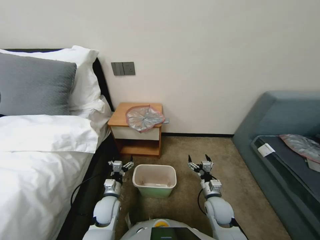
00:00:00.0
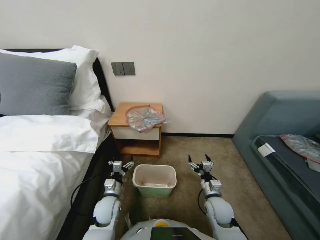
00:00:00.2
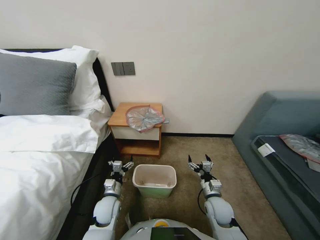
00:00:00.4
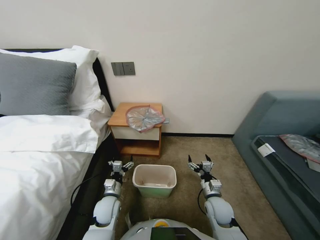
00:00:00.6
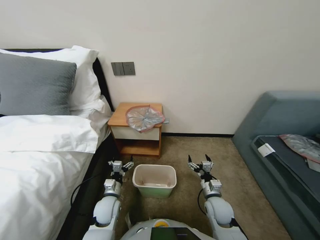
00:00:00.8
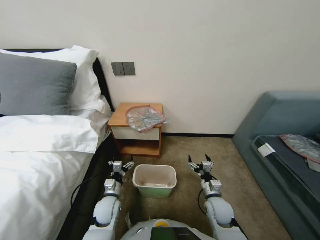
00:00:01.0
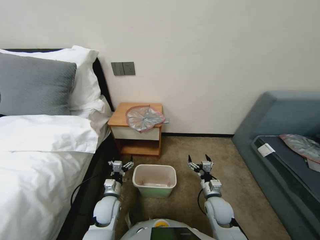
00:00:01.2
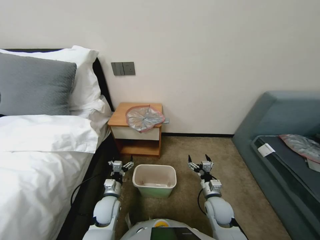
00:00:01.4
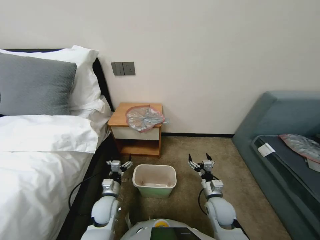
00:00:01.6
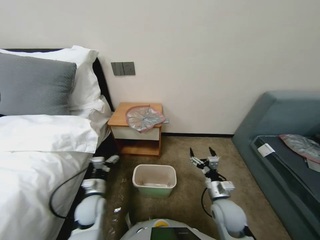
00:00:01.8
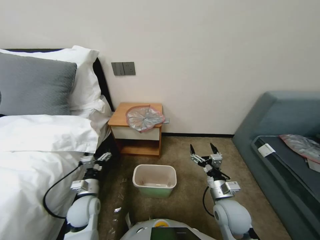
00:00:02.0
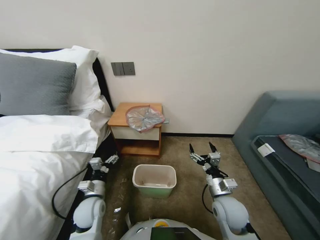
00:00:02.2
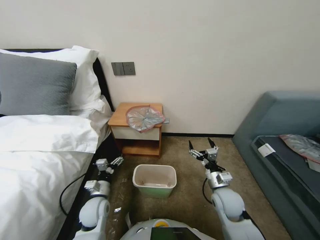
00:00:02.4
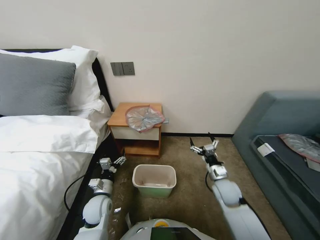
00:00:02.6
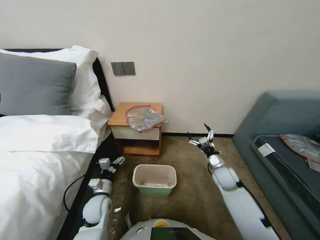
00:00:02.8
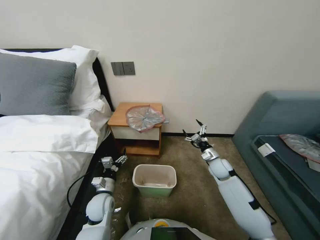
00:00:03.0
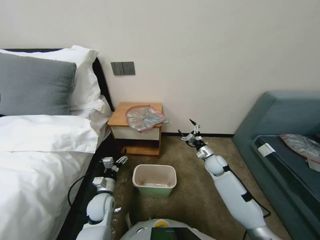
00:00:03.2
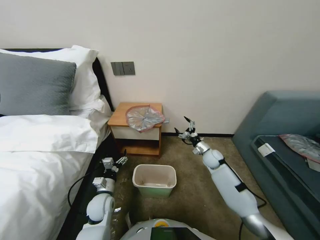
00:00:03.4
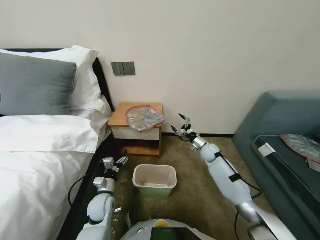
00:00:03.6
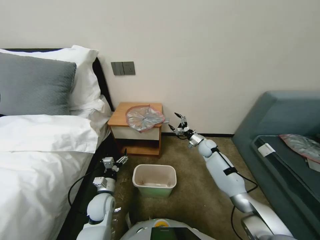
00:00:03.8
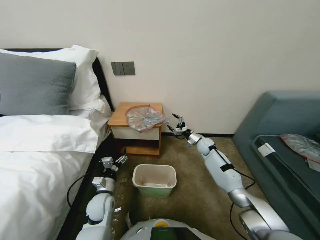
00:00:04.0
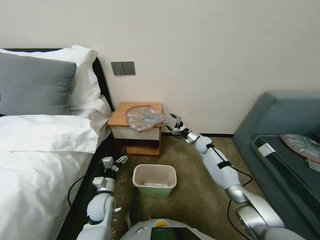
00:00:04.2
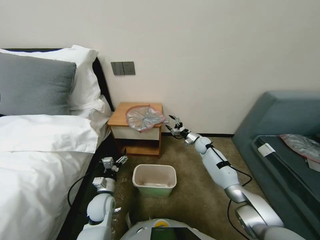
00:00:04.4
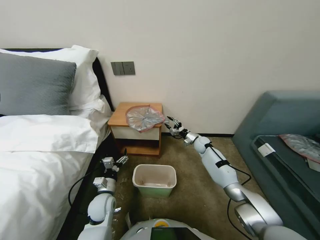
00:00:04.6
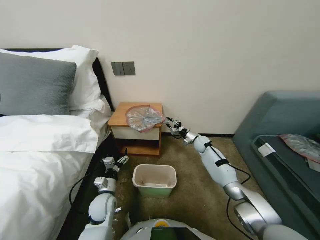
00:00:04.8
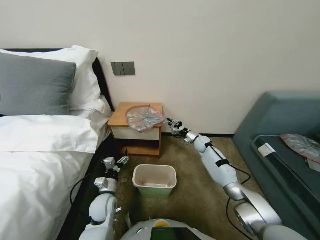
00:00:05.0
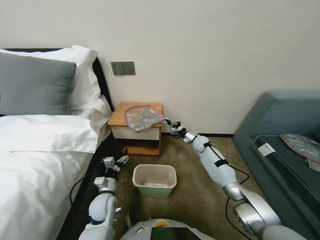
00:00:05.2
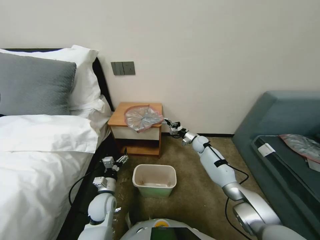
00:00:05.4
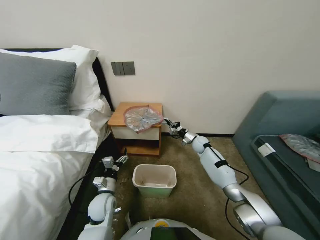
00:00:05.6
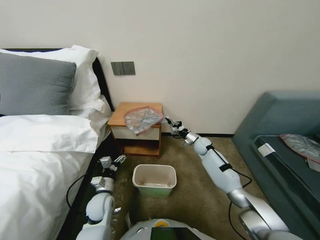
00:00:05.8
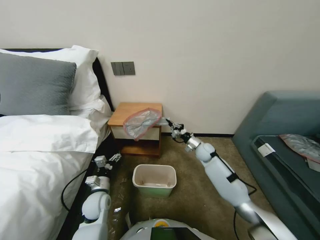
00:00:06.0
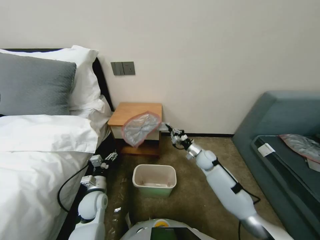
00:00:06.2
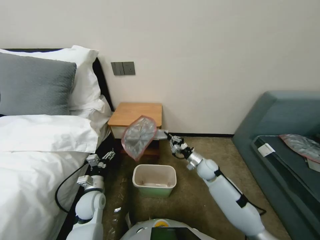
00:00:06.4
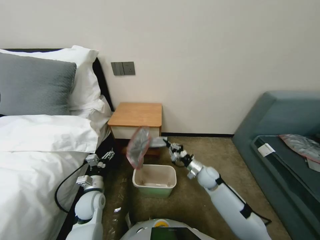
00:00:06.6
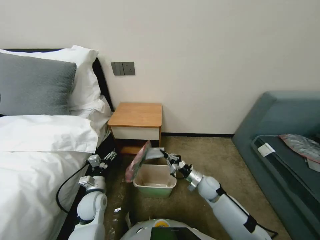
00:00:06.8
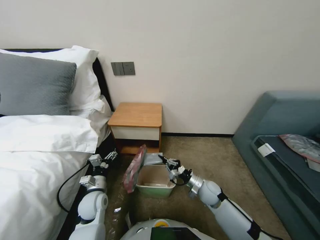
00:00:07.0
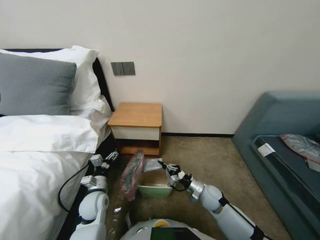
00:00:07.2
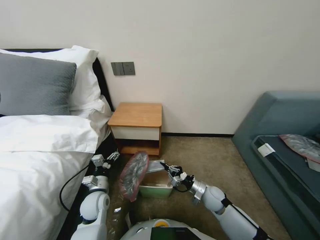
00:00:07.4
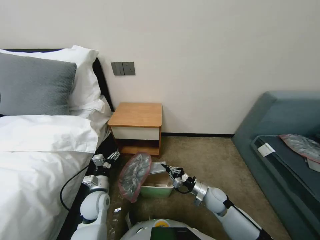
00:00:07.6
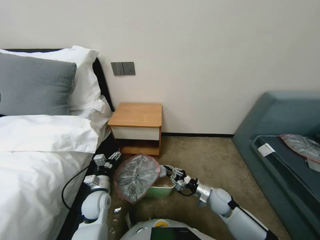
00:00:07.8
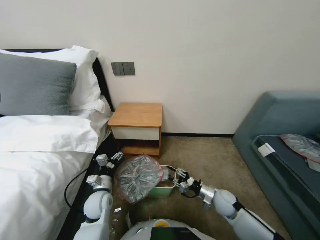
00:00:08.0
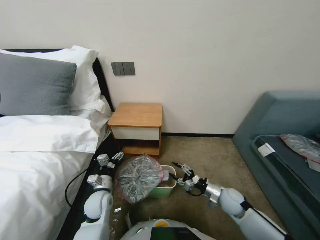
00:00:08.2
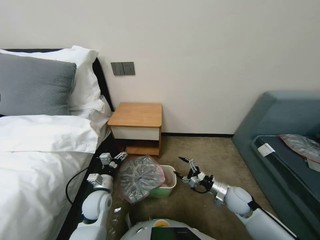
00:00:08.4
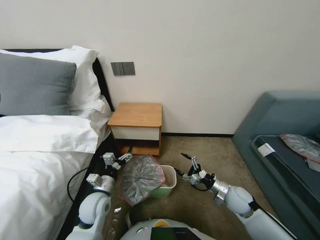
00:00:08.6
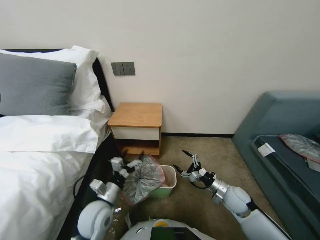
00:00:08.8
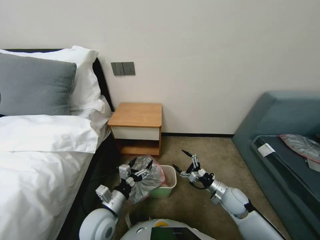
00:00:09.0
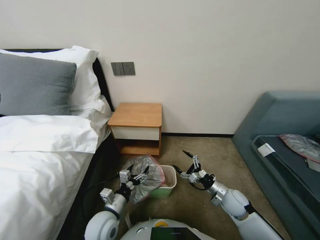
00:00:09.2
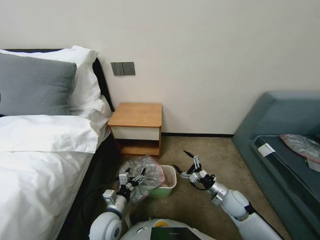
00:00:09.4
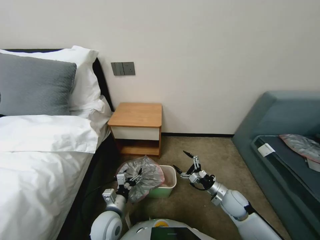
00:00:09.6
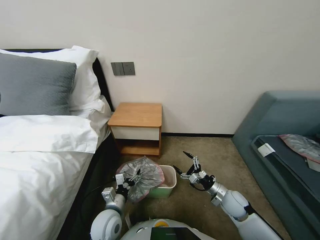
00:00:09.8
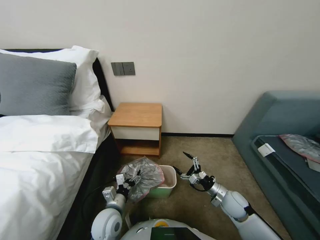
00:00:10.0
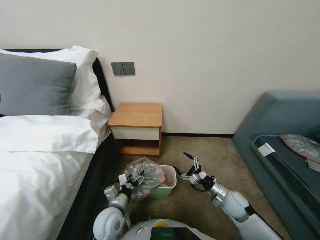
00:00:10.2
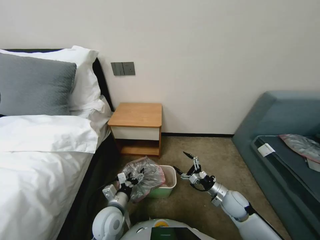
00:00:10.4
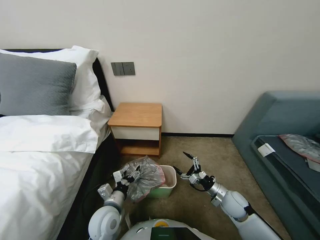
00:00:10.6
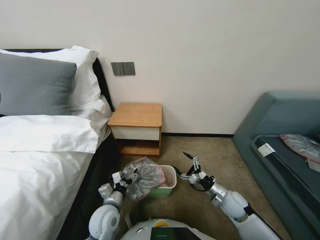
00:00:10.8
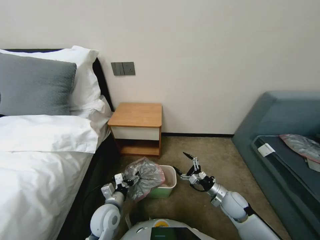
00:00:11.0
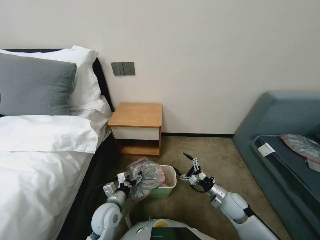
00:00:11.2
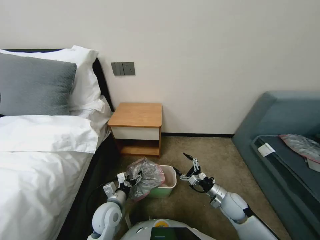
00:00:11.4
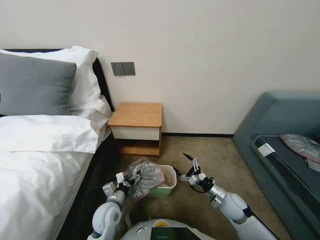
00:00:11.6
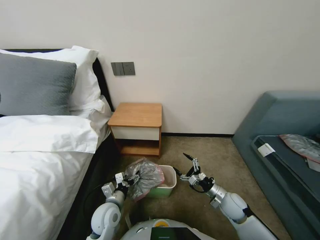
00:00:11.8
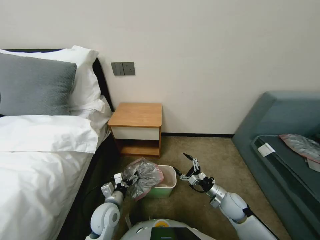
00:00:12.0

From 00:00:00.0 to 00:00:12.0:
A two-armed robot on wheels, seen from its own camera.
Task of the whole recording: Pick up the garbage bag from the table and place it over the trash can.
From 00:00:01.6 to 00:00:03.0: The right gripper moves forward and to the right, approximately 15 cm.
From 00:00:03.0 to 00:00:04.4: The right gripper heads forward, covering roughly 15 cm.
From 00:00:04.4 to 00:00:06.0: The right gripper moves roughly 5 cm, and closes.
From 00:00:06.0 to 00:00:07.6: The right gripper heads backward, covering some 25 cm.
From 00:00:07.6 to 00:00:09.0: The left gripper heads backward, upward and to the right, covering roughly 10 cm, while the right gripper is displaced to the right by roughly 5 cm, and opens up.
From 00:00:09.0 to 00:00:10.4: The left gripper travels downward by approximately 5 cm.
From 00:00:10.4 to 00:00:12.0: The grippers make only small movements.

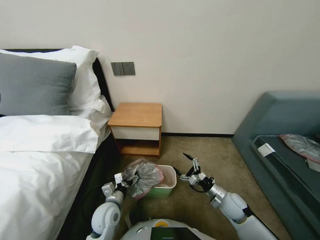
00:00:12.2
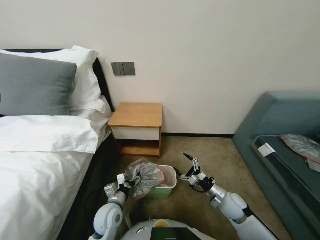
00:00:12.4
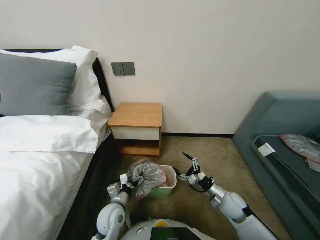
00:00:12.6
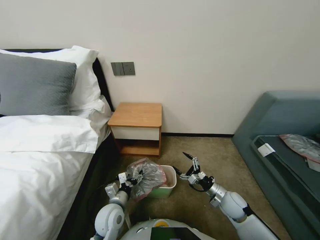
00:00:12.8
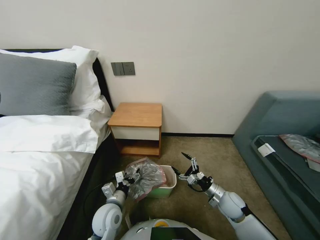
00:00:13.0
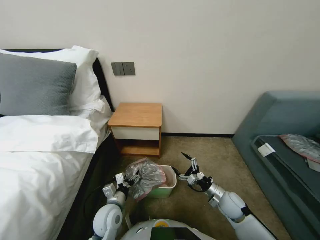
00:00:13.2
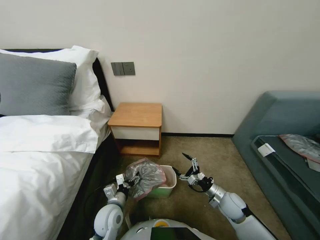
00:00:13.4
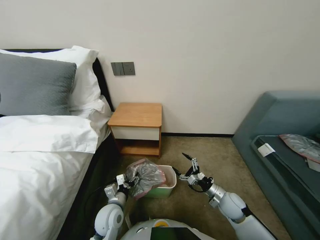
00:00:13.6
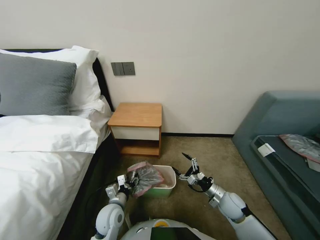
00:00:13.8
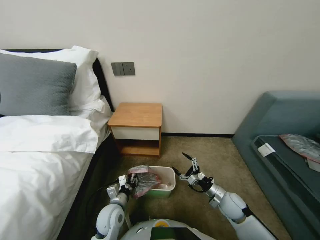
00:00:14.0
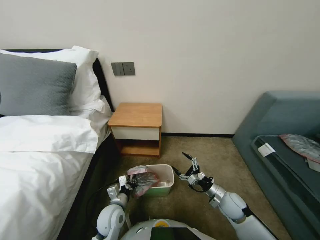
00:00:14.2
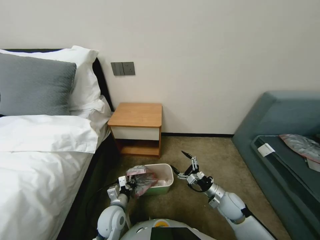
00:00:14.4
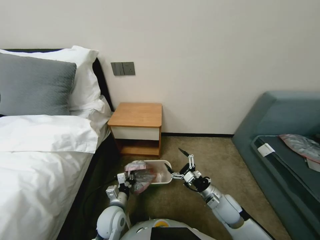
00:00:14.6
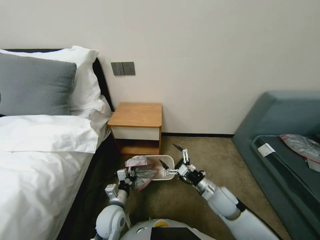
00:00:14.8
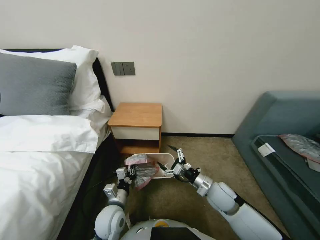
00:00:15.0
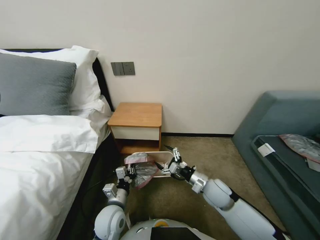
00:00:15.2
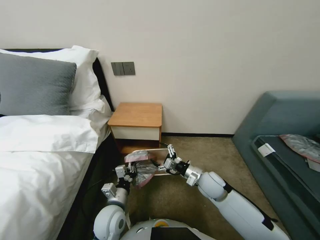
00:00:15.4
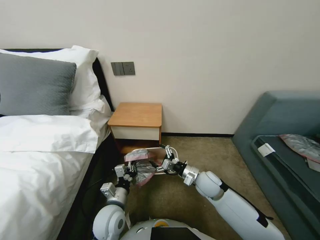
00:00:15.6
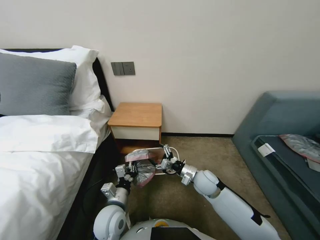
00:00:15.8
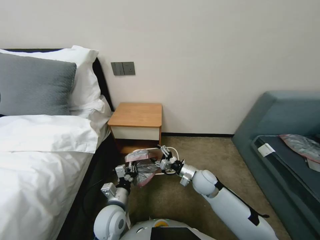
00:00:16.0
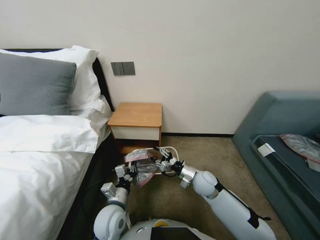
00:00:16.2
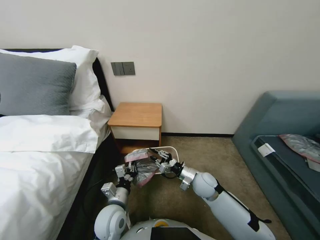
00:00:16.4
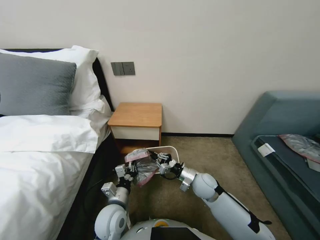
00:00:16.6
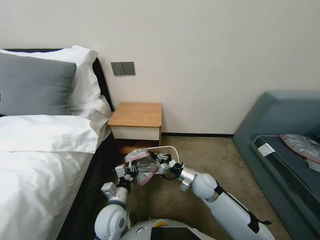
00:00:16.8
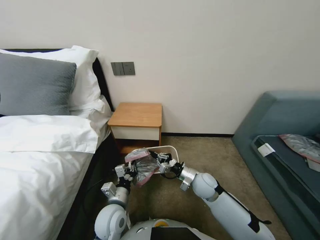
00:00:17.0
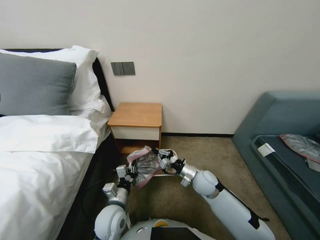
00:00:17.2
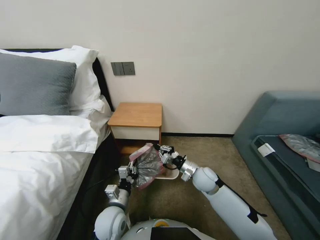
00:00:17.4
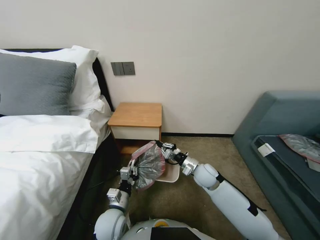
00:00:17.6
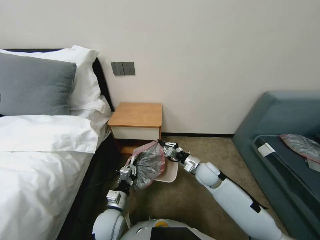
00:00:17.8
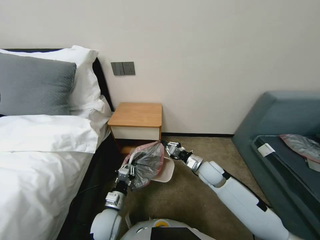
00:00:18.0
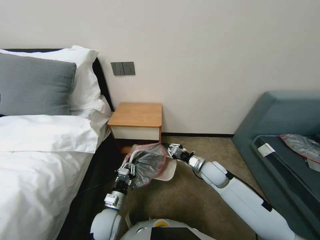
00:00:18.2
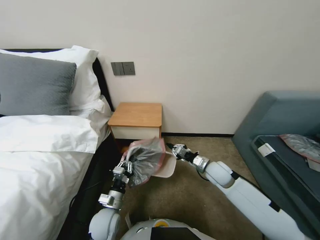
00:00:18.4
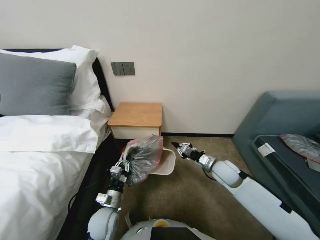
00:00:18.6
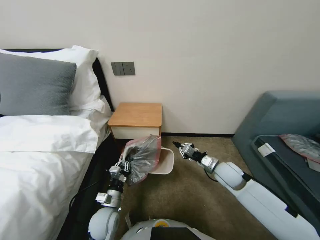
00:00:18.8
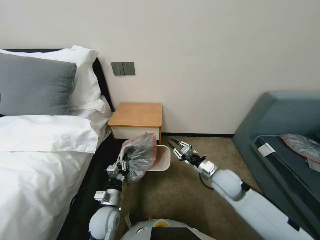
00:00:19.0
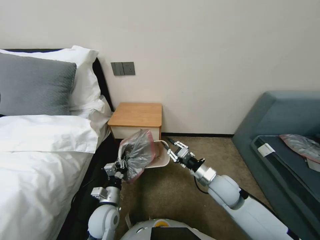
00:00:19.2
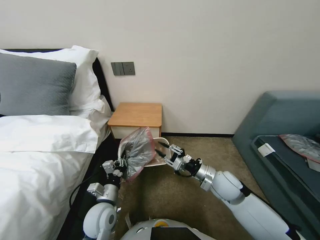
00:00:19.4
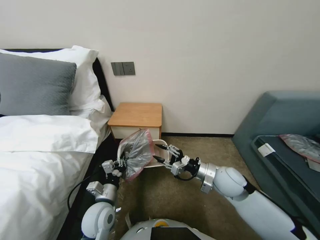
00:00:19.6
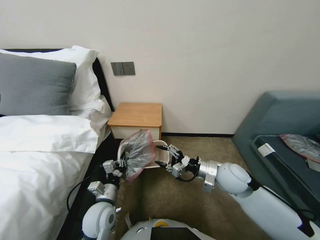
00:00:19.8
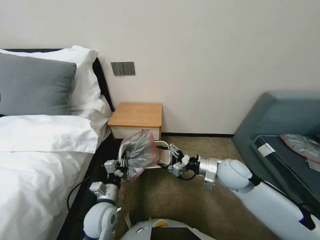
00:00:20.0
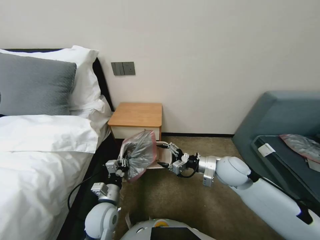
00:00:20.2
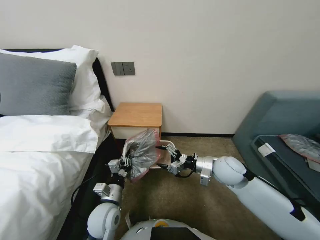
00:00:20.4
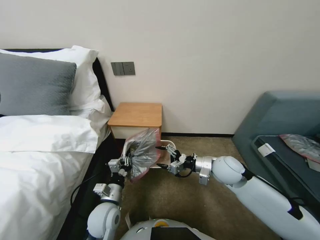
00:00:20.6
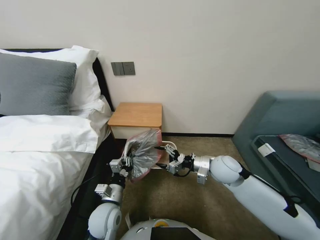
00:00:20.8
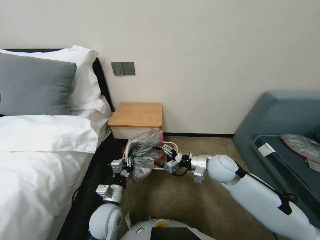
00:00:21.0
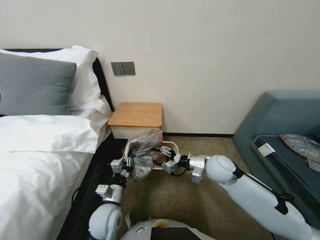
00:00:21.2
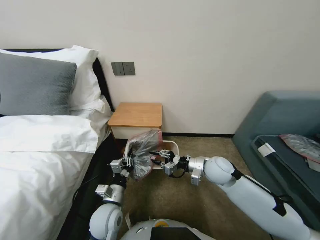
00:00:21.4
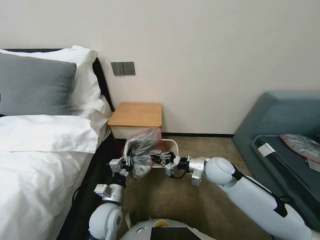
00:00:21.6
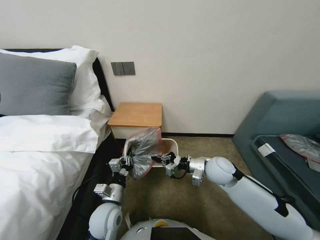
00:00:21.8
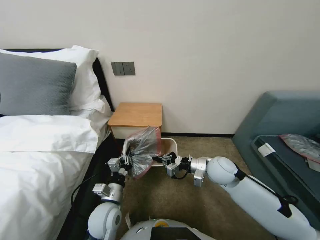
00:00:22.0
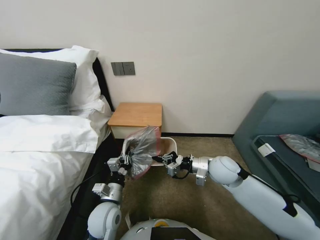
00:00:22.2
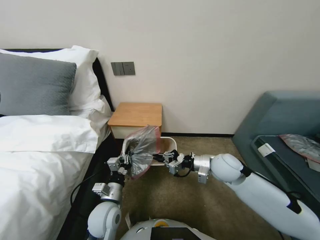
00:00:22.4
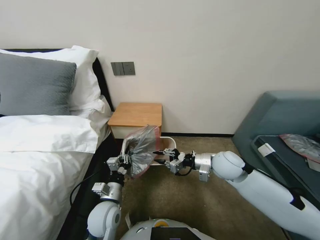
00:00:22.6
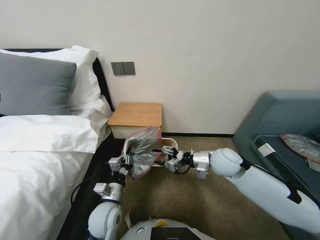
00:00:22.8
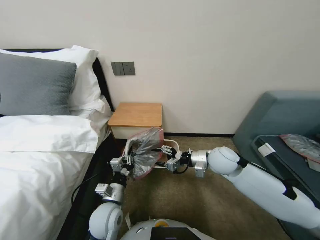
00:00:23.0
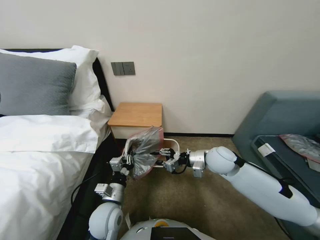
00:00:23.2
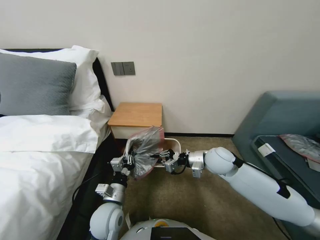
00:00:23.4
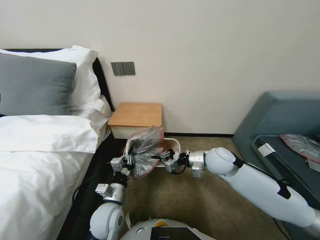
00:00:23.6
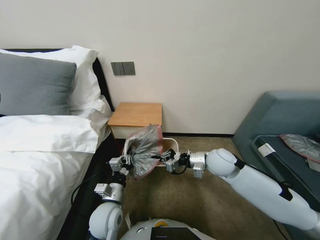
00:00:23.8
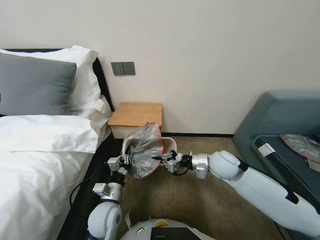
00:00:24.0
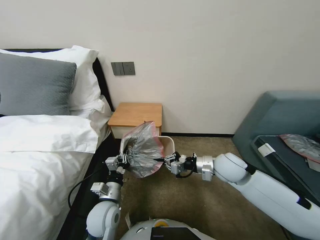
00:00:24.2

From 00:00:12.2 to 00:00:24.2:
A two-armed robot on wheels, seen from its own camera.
Task of the whole recording: Pick up the garbage bag from the table and place it over the trash can.
From 00:00:12.2 to 00:00:13.8: The grippers stay close to where they were, moving slightly.
From 00:00:13.8 to 00:00:15.2: The left gripper closes. The right gripper moves upward and to the left, about 10 cm.
From 00:00:15.2 to 00:00:16.6: The right gripper shifts by roughly 5 cm, and closes its fingers.
From 00:00:16.6 to 00:00:18.2: The right gripper changes place by some 5 cm; the left gripper shifts by roughly 5 cm.
From 00:00:18.2 to 00:00:19.8: The right gripper goes about 10 cm upward and backward, and opens up, while the left gripper moves upward, approximately 5 cm.
From 00:00:19.8 to 00:00:21.2: The grippers stay close to where they were, moving slightly.
From 00:00:21.2 to 00:00:22.6: The right gripper closes its fingers.
From 00:00:22.6 to 00:00:24.2: The right gripper opens and closes again.
